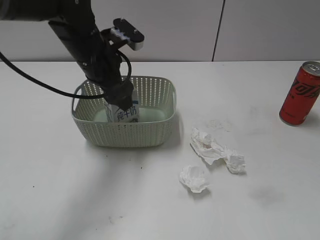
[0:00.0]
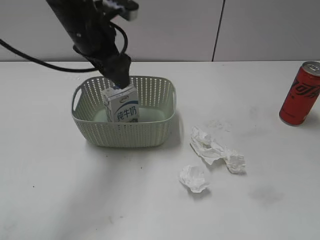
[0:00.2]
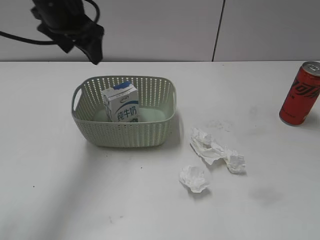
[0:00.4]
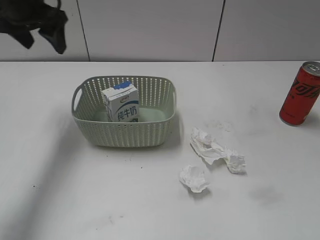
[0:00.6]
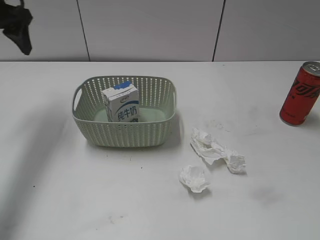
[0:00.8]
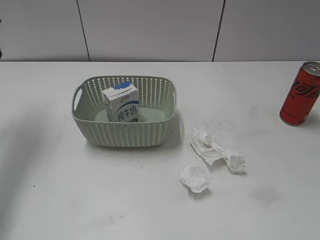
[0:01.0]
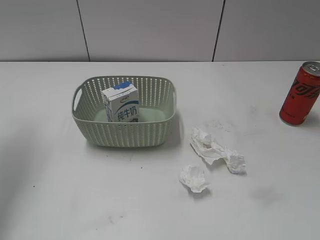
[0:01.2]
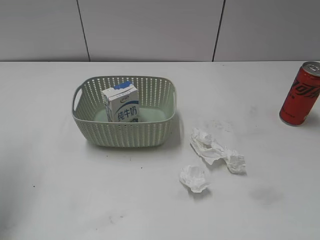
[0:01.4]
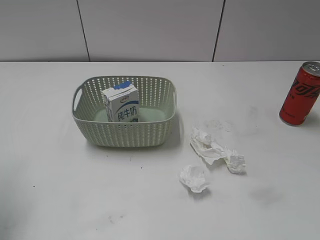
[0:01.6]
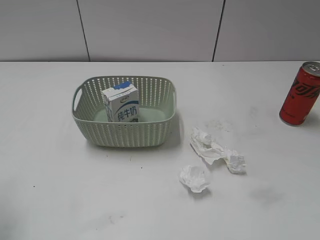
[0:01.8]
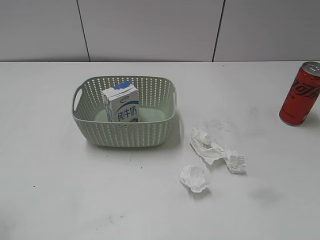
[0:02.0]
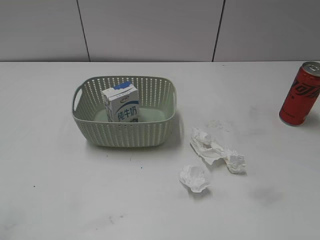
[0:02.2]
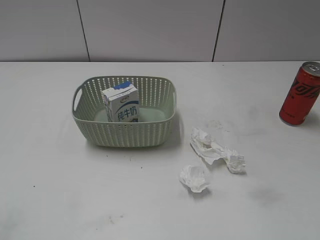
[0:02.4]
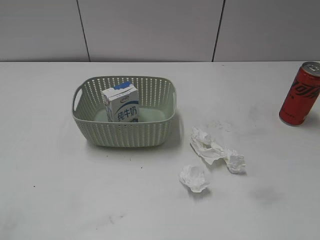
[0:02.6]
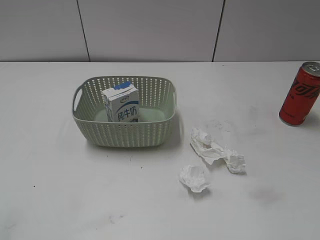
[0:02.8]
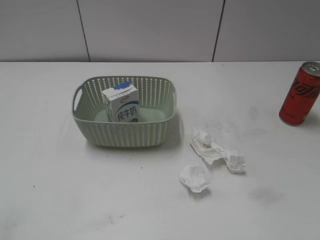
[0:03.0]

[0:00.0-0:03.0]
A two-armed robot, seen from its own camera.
0:00.0 to 0:01.6: The left gripper travels to the left, backward and upward by about 30 cm.

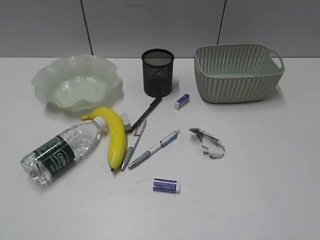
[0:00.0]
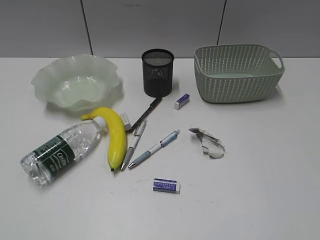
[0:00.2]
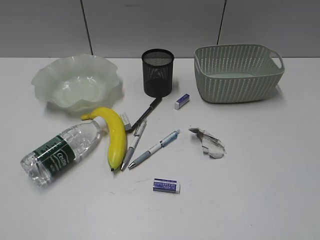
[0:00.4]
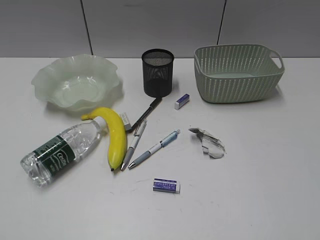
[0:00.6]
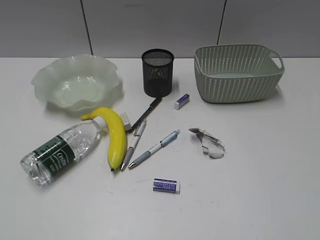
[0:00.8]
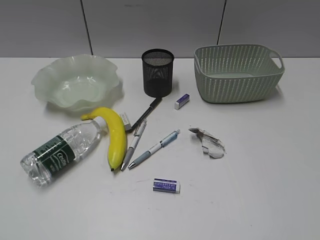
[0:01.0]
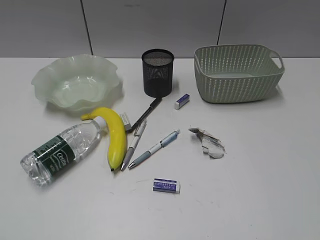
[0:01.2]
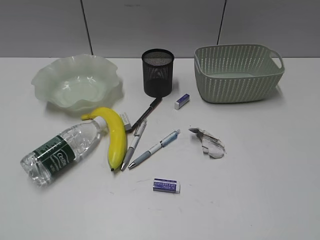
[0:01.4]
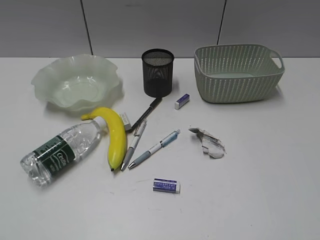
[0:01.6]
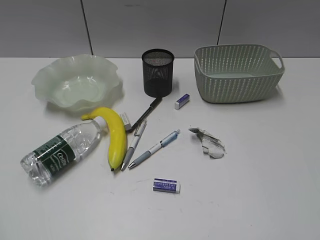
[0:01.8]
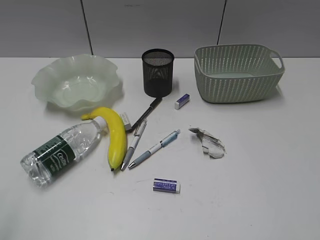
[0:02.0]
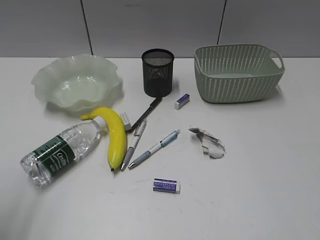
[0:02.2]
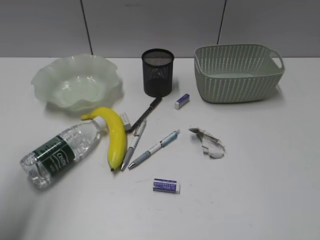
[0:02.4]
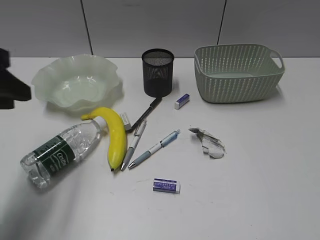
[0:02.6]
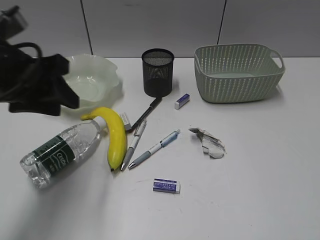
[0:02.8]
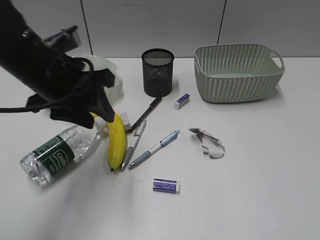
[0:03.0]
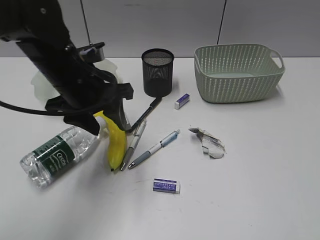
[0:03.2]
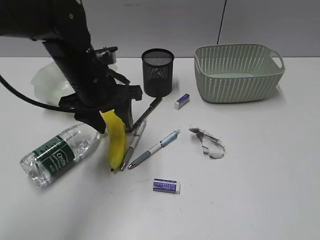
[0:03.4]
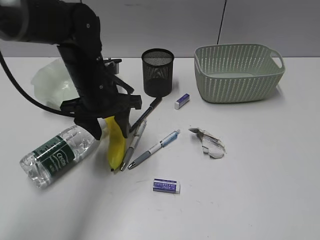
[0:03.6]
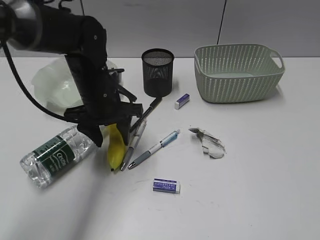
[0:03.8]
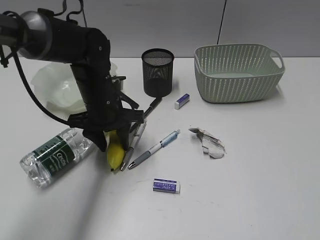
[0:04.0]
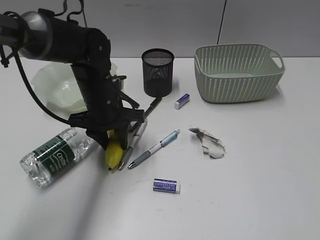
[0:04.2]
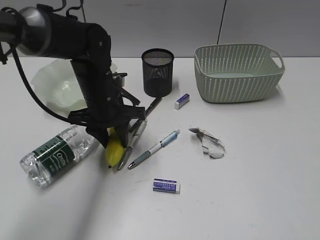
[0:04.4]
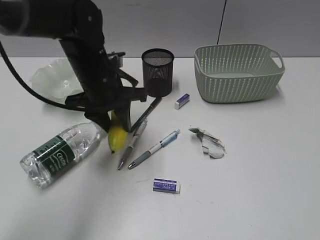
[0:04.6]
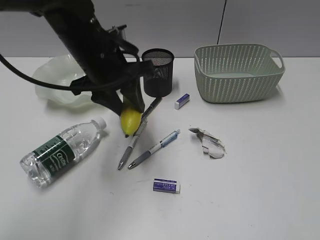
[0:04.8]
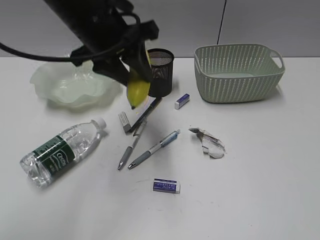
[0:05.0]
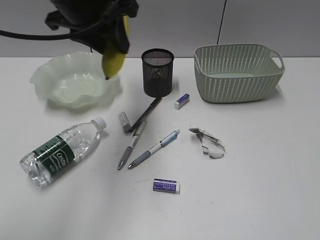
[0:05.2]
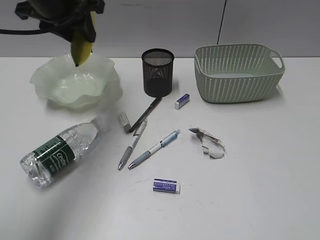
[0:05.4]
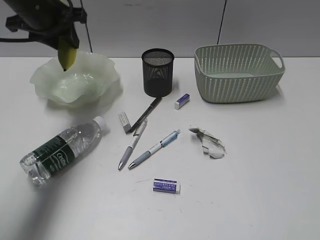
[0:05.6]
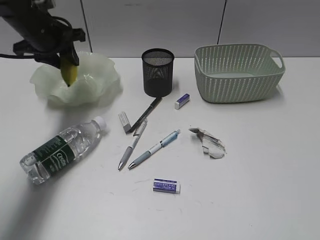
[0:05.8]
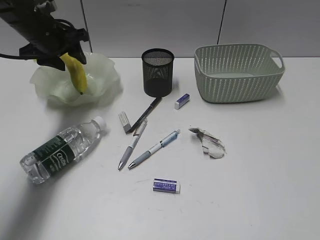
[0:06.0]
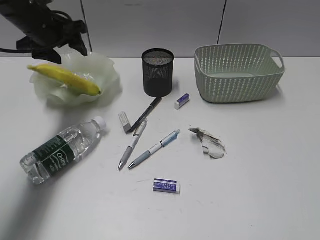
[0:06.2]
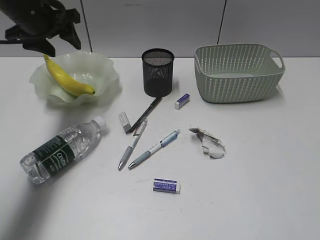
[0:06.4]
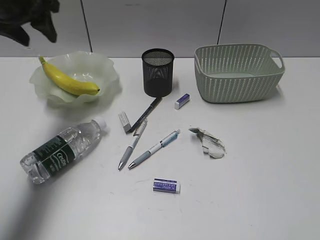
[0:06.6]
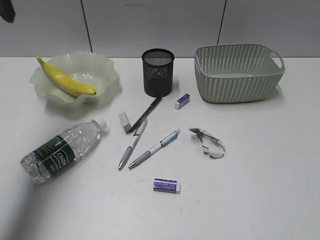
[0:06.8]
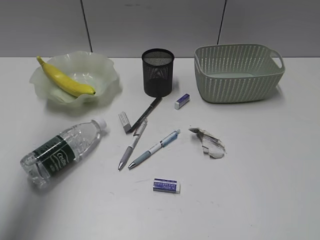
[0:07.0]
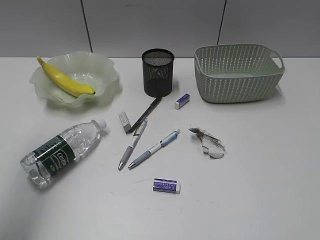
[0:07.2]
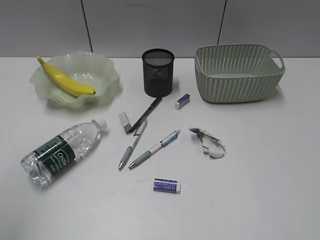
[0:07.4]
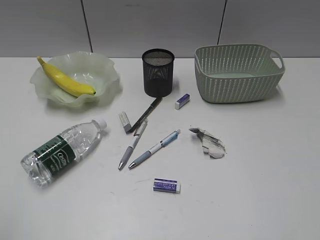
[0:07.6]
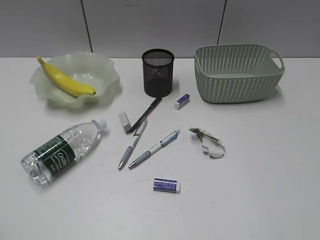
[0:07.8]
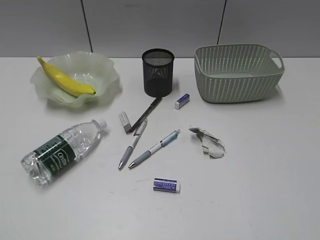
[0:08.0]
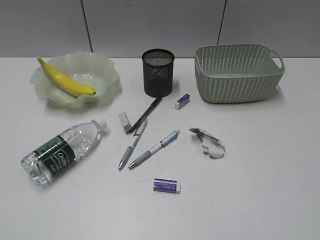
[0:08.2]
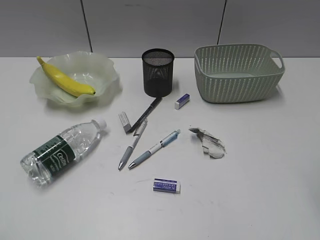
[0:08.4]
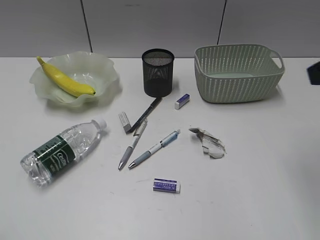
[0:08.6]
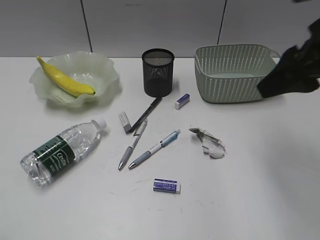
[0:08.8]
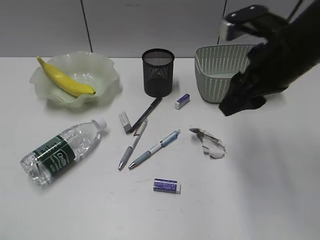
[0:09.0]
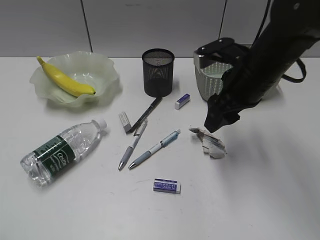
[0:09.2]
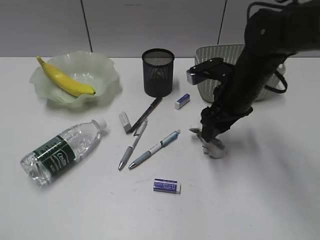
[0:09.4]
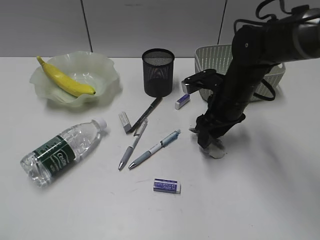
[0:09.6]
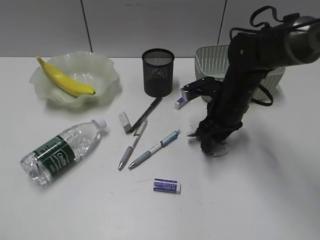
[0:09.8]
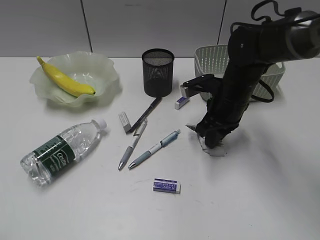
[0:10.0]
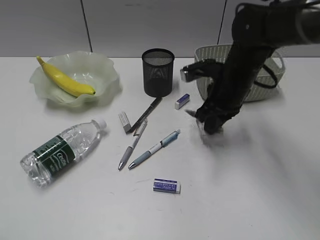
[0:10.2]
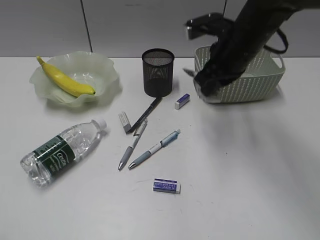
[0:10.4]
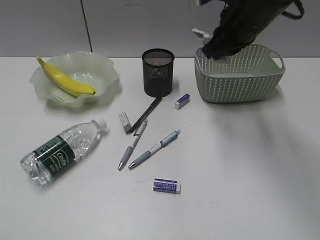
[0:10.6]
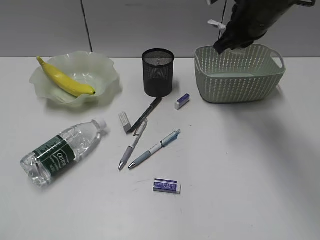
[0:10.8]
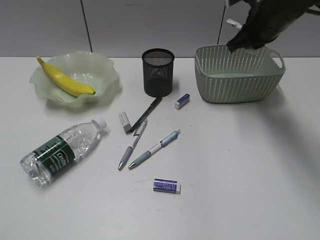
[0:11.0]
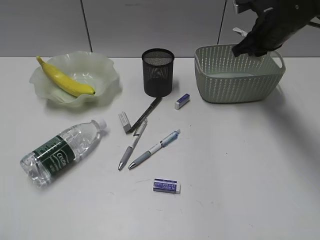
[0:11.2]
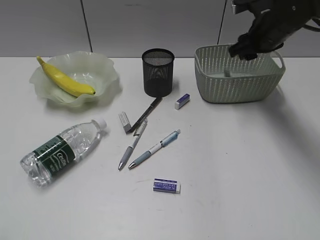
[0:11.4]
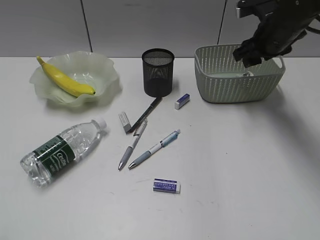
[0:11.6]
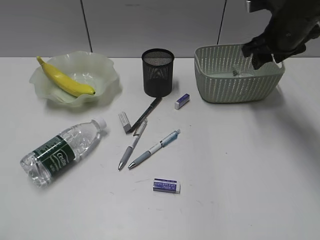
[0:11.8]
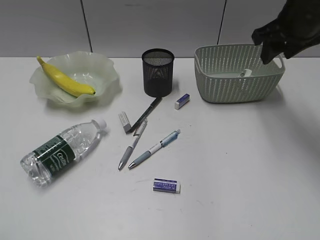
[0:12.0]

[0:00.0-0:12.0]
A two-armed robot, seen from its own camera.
Step, 0:01.6 to 0:04.2: Grasp the banana with left gripper.
Step, 0:04.4 to 0:06.2: Place the banana in the plate with left gripper.
Step, 0:06.4 to 0:10.0: Grasp the waste paper with right gripper.
Step, 0:10.2 to 0:11.4: Place the waste paper in the basket with right gripper.
0:01.6 to 0:03.0: The left gripper goes approximately 35 cm forward and to the right.
0:03.0 to 0:04.4: The left gripper heads downward, forward and to the right, covering about 15 cm.
0:04.4 to 0:06.0: The left gripper is displaced to the left, forward and upward by about 20 cm.
0:06.0 to 0:07.6: The left gripper travels backward by some 40 cm.
0:07.6 to 0:09.0: The right gripper goes about 30 cm forward and to the left.
0:09.0 to 0:10.4: The right gripper moves forward and downward, approximately 10 cm, and closes.
0:10.4 to 0:12.0: The right gripper heads to the right and upward, covering some 10 cm, and opens its fingers.

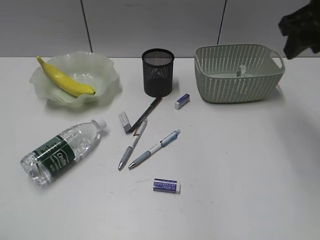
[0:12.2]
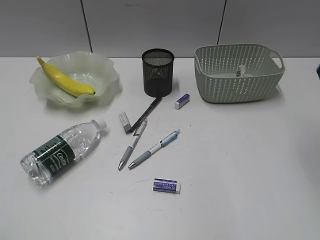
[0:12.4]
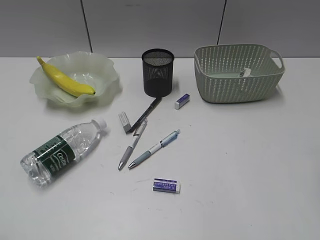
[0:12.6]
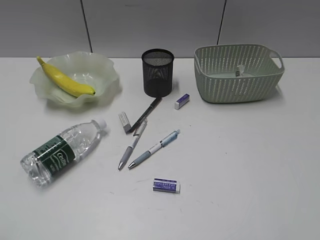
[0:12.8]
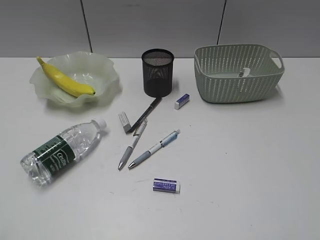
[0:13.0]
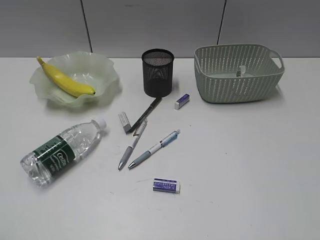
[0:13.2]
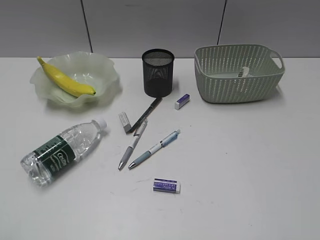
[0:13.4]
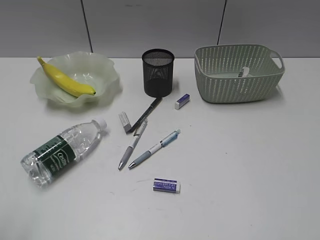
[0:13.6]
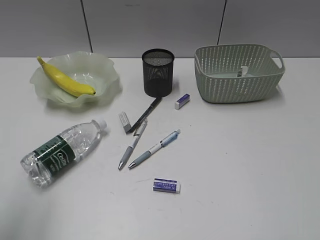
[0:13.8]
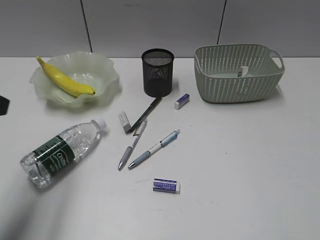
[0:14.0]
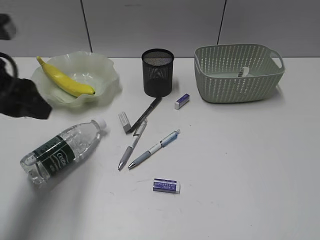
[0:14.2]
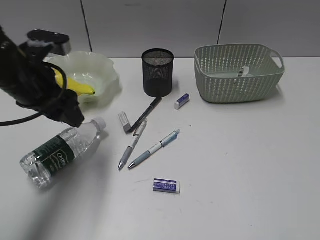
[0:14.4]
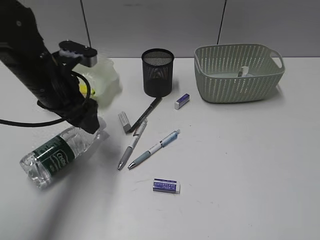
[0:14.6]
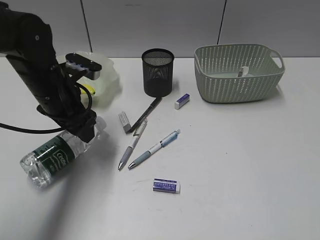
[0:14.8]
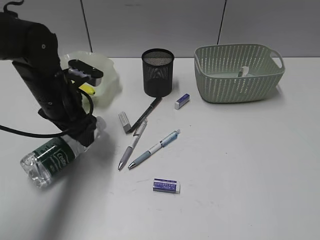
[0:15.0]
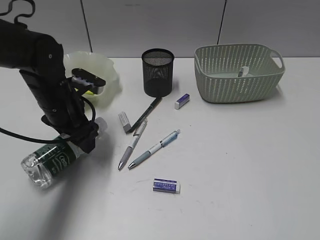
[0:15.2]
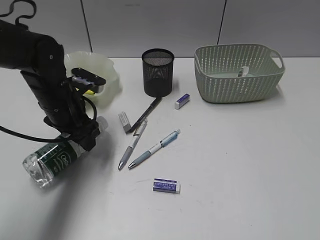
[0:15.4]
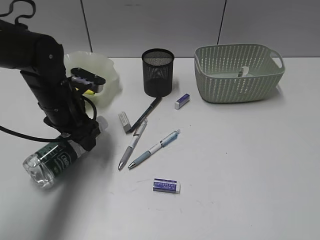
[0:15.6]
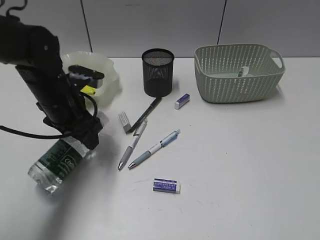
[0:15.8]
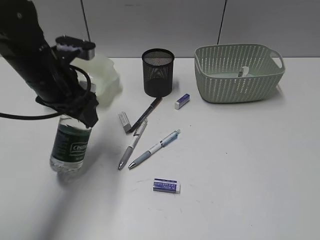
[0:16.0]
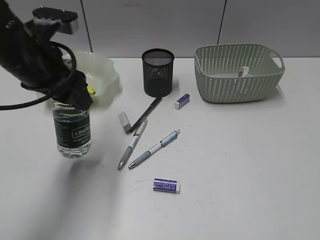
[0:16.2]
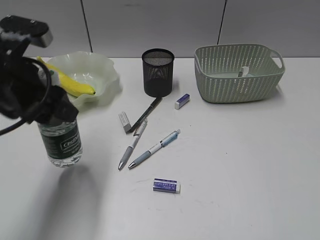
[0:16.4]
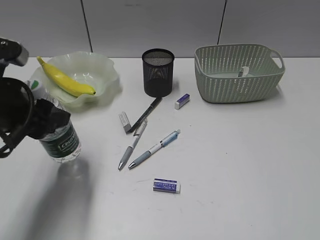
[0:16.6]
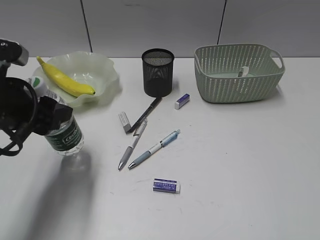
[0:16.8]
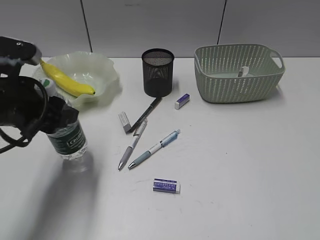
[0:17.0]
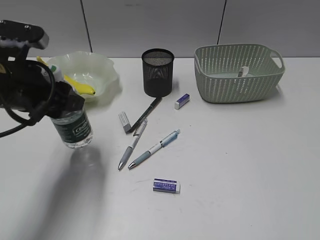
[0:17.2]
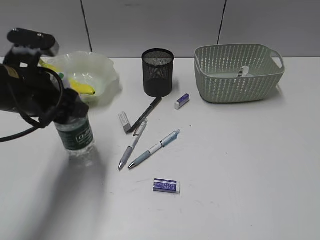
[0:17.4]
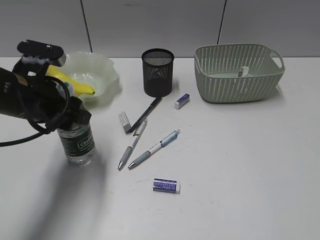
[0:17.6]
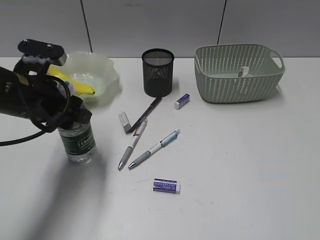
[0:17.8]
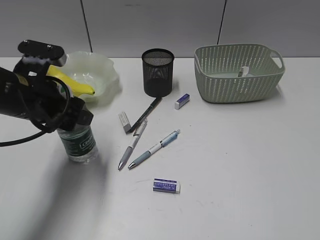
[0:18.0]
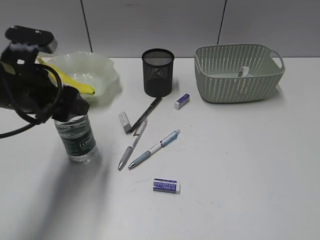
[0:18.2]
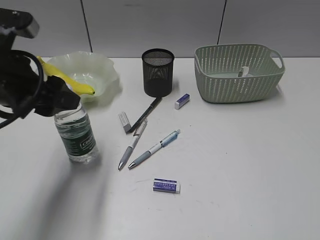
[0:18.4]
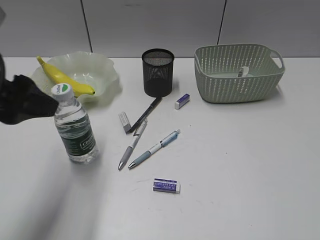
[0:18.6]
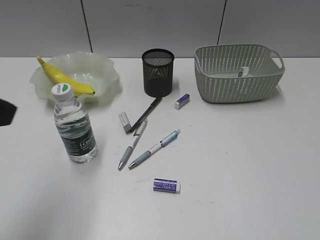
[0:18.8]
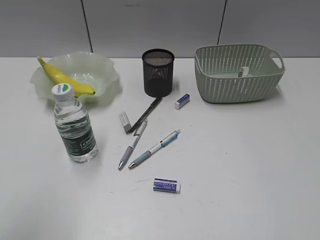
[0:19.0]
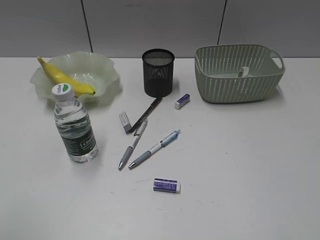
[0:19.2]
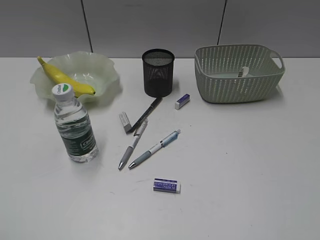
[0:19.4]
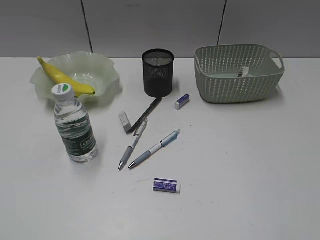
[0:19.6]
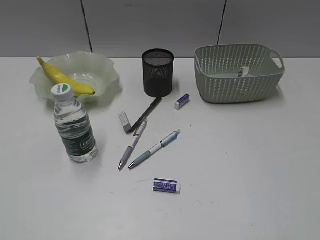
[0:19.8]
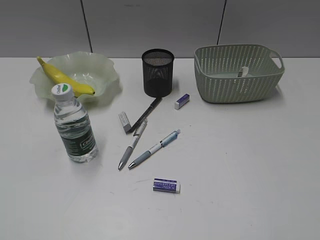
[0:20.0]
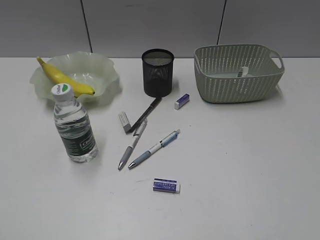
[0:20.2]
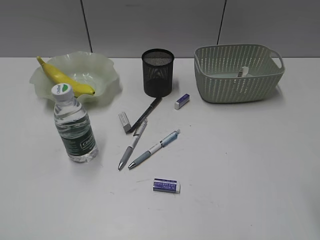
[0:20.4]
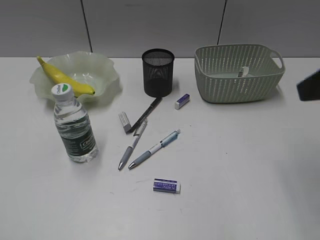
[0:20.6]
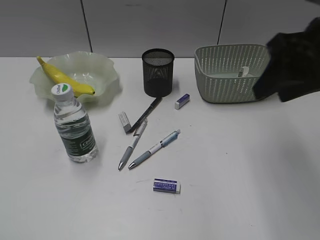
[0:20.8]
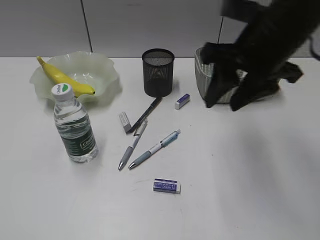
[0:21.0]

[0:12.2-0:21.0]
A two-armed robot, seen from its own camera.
Step, 0:12.2 to 0:15.4: Grasp the bottle with left gripper.
Step, 0:15.6 to 0:18.4: Stand the bottle with left gripper.
0:12.2 to 0:13.6: The right gripper goes roughly 35 cm backward.
0:13.6 to 0:15.2: The left gripper travels forward, downward and to the right by approximately 40 cm, and opens up.
0:15.2 to 0:16.6: The left gripper shifts approximately 15 cm backward and upward.
0:16.6 to 0:18.0: The left gripper is displaced forward by roughly 5 cm.
0:18.0 to 0:19.6: The left gripper goes approximately 35 cm backward and to the left.
0:19.6 to 0:21.0: The right gripper travels forward and to the left by roughly 35 cm.
